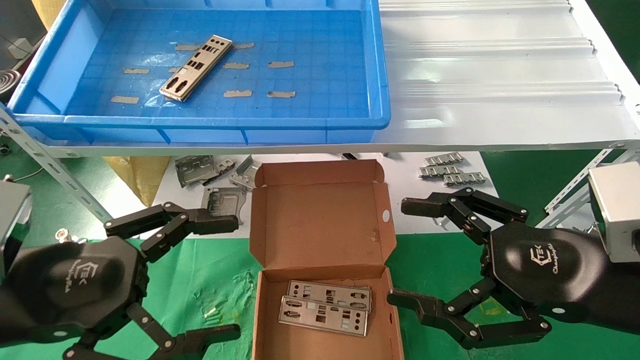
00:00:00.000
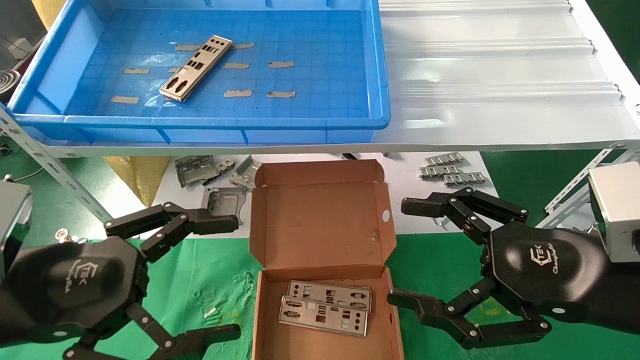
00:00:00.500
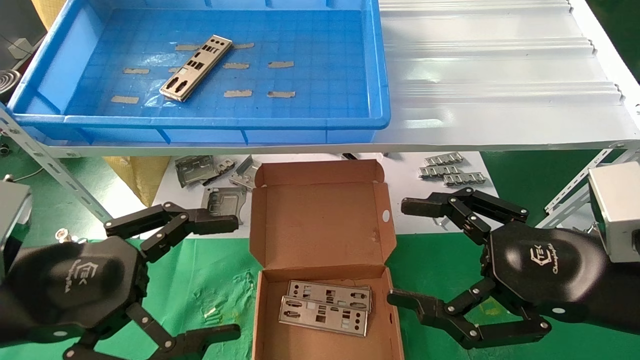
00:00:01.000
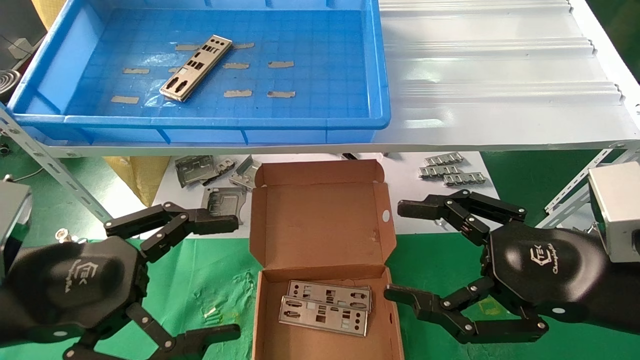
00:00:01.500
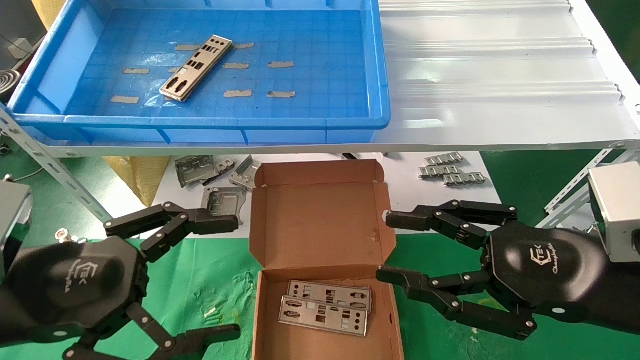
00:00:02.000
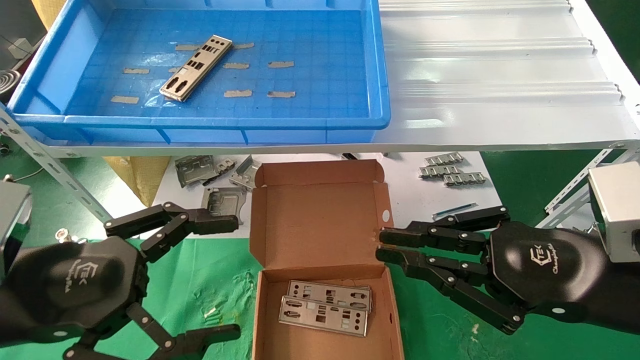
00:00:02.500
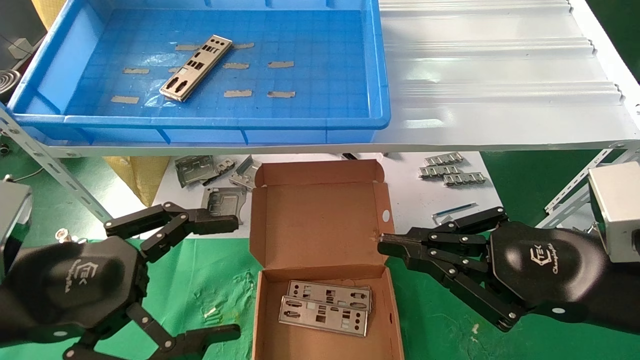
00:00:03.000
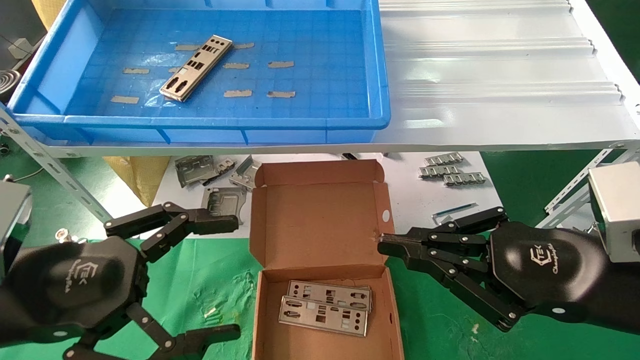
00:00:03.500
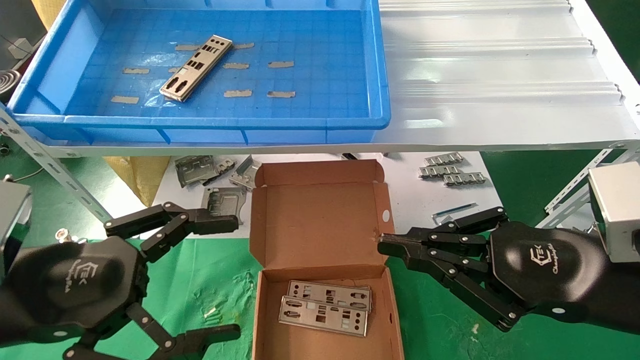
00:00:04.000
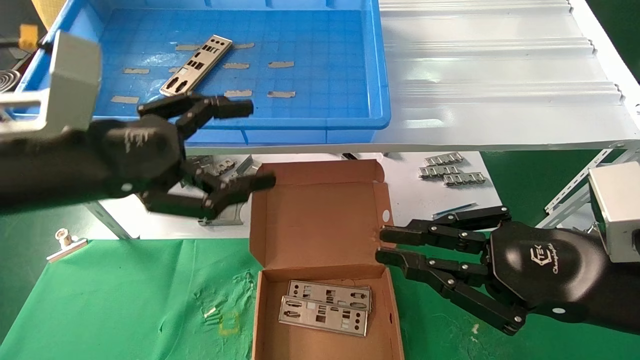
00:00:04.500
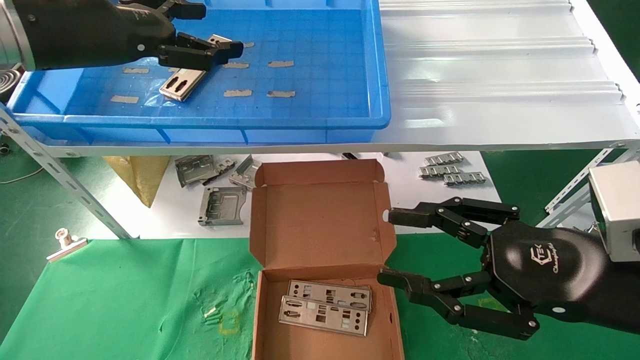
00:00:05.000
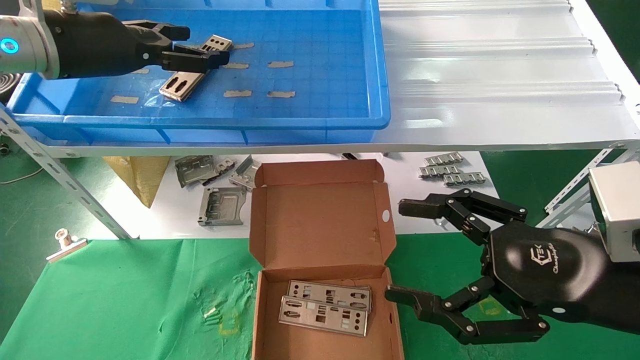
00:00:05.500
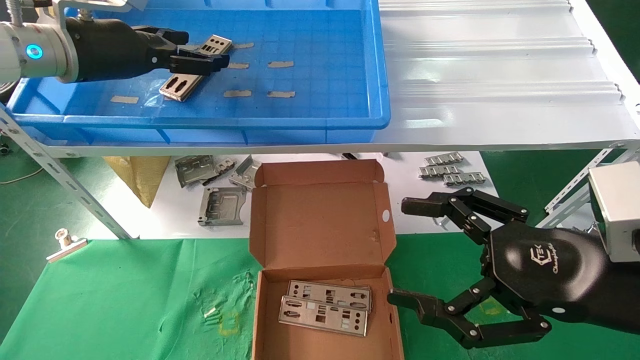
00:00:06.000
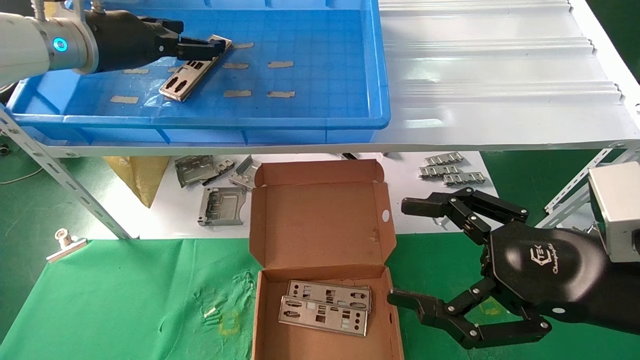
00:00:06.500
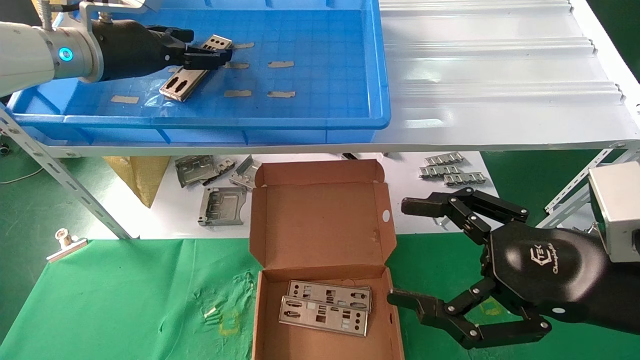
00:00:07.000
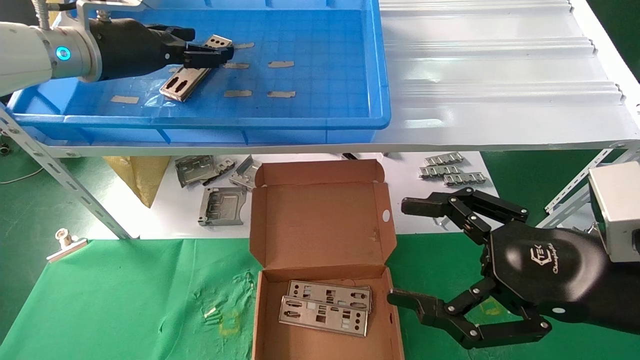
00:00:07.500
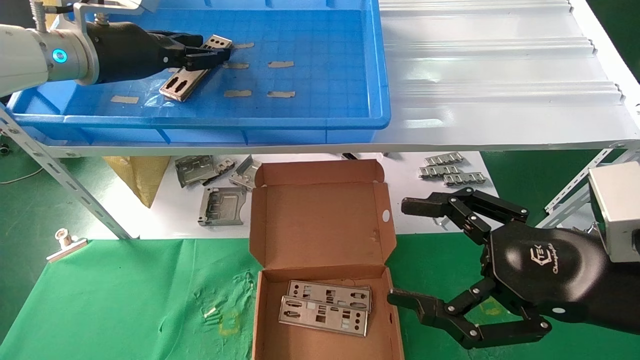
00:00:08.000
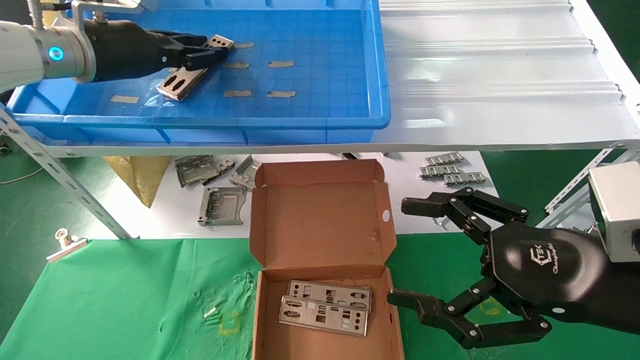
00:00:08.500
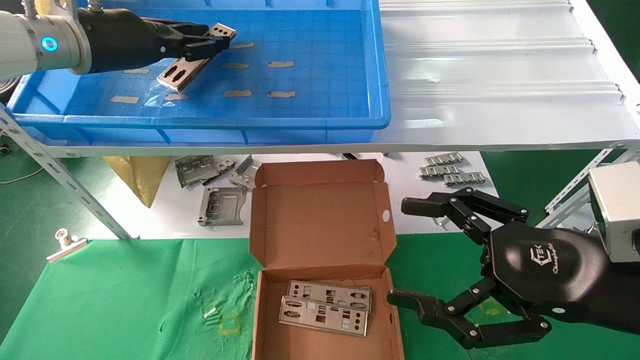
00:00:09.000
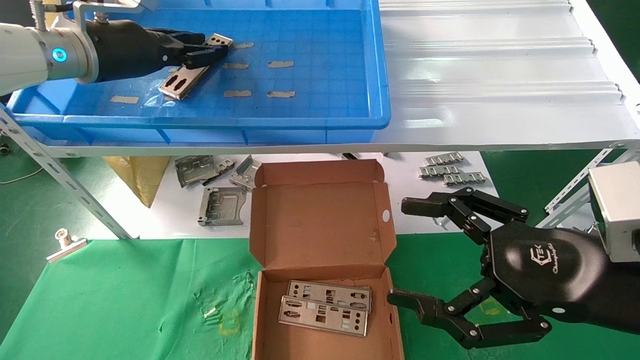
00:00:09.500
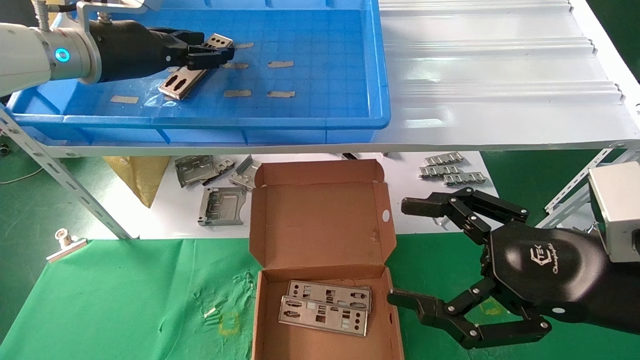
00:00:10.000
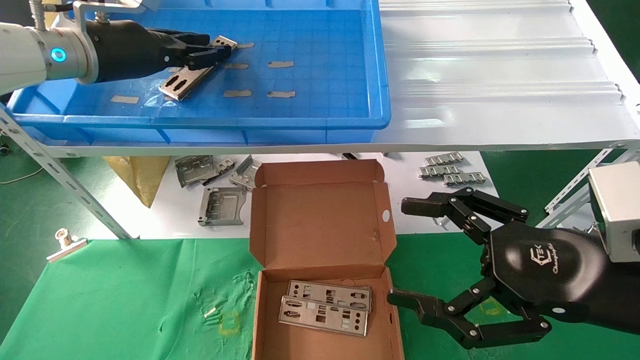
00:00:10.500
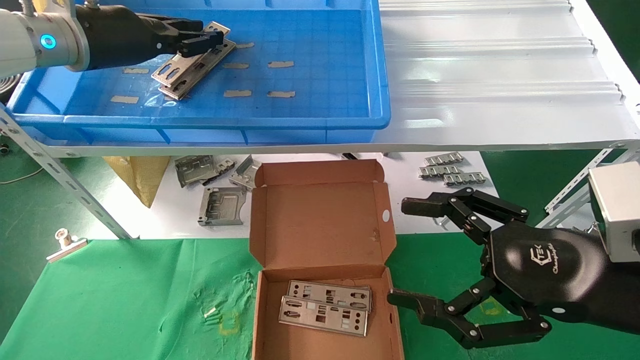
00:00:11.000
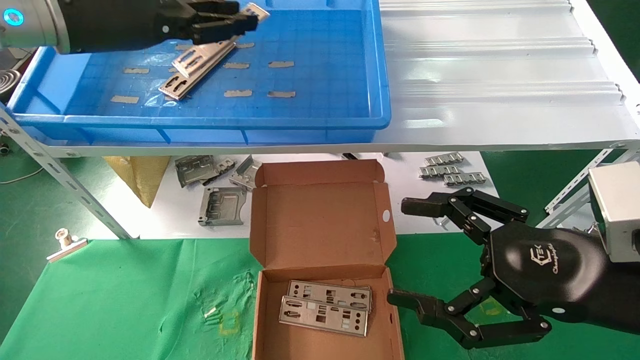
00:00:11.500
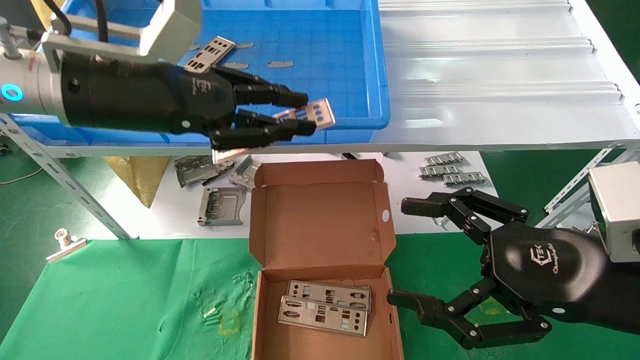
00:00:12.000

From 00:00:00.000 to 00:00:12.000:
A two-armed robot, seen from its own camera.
Task of the whole recording: pick up the parts on the tray and put them in the cardboard box.
Step, from 00:00:04.500 to 00:00:11.000: Pick up the IO bracket from the container box.
From 00:00:00.000 to 00:00:02.000: The right gripper closes its fingers.
From 00:00:02.000 to 00:00:04.000: The right gripper closes up.
From 00:00:04.000 to 00:00:06.000: The left gripper goes some 30 cm forward and upward, while the right gripper opens up.
From 00:00:06.000 to 00:00:08.000: The left gripper closes its fingers.
From 00:00:08.000 to 00:00:10.000: Both grippers stay about where they are.
From 00:00:10.000 to 00:00:12.000: The left gripper heads backward and to the right, covering some 10 cm, and closes its fingers.

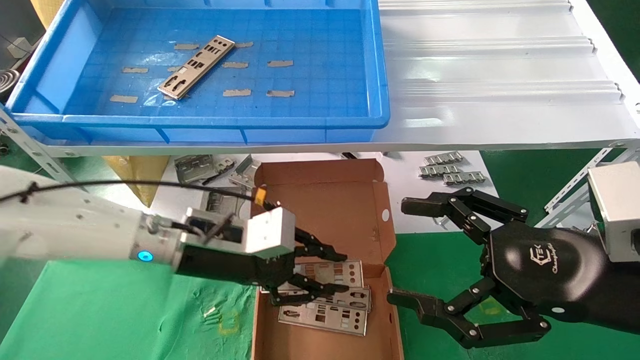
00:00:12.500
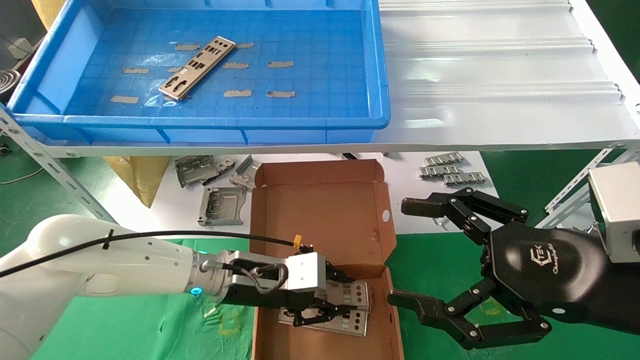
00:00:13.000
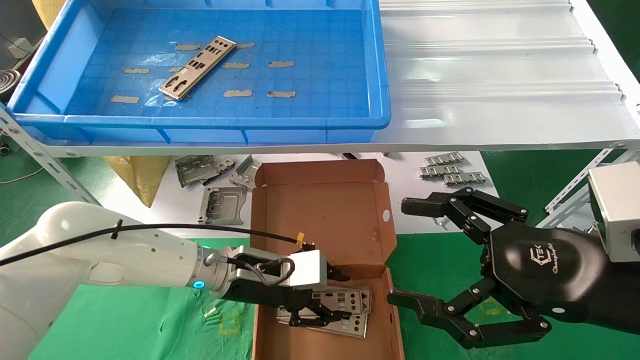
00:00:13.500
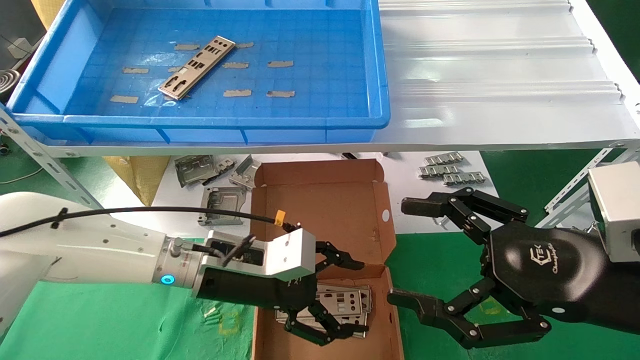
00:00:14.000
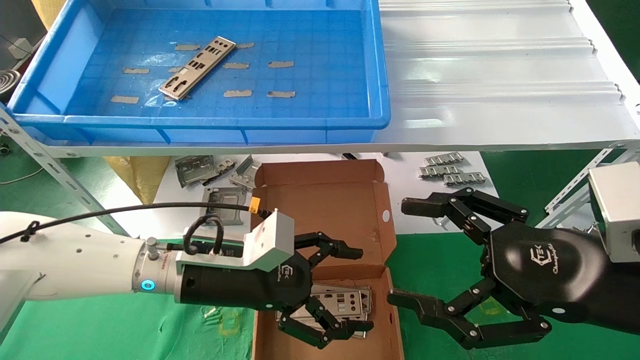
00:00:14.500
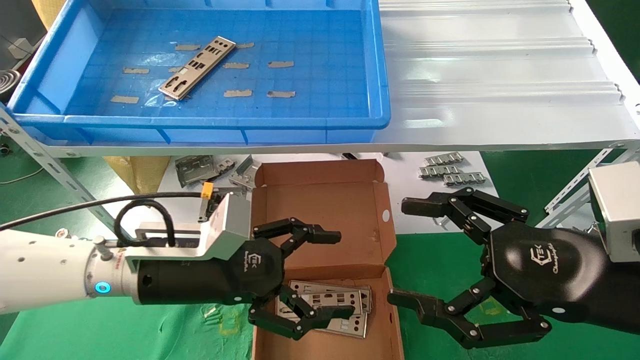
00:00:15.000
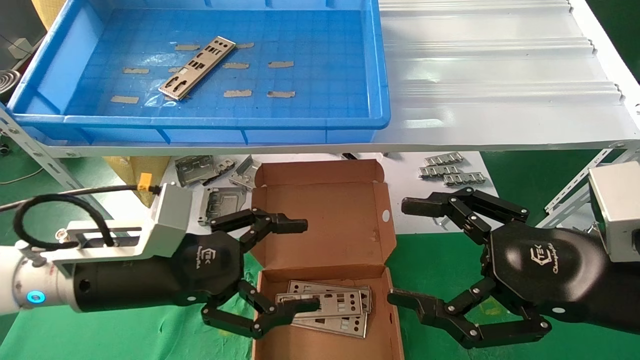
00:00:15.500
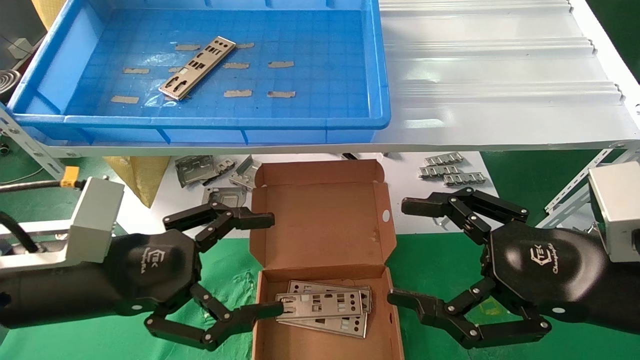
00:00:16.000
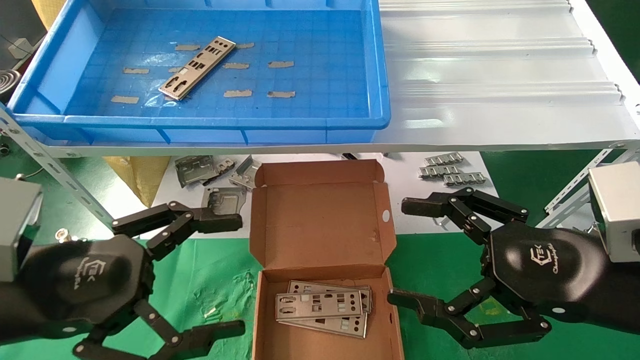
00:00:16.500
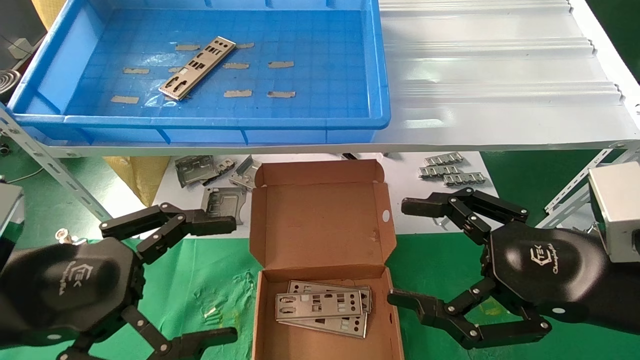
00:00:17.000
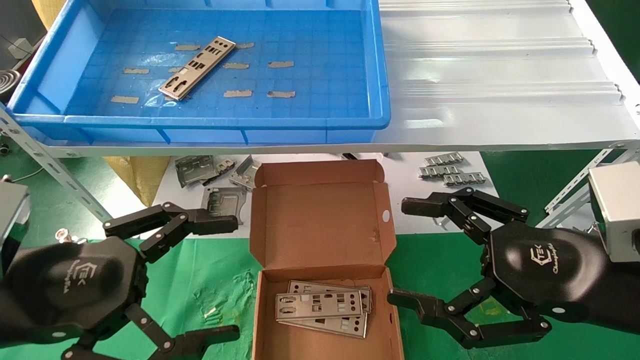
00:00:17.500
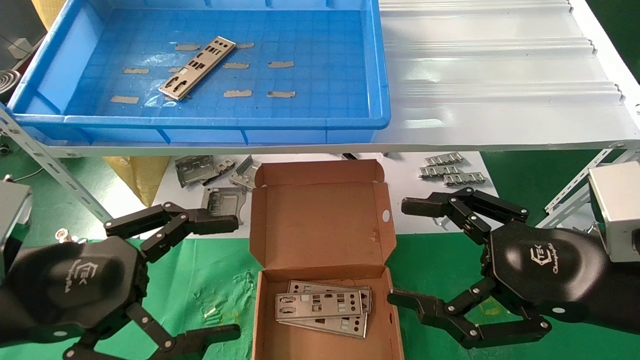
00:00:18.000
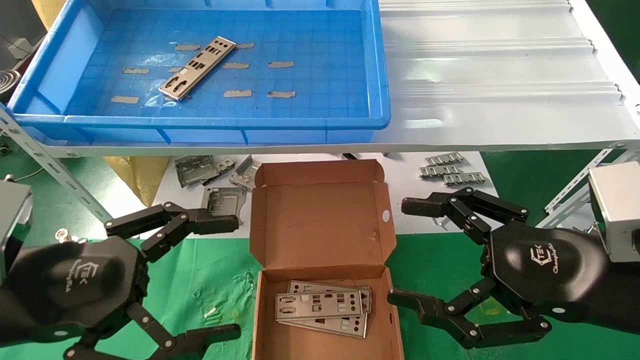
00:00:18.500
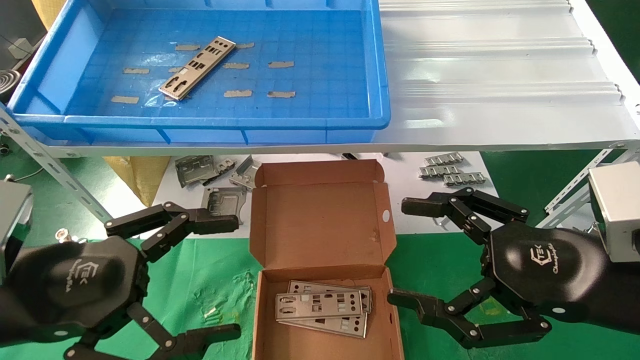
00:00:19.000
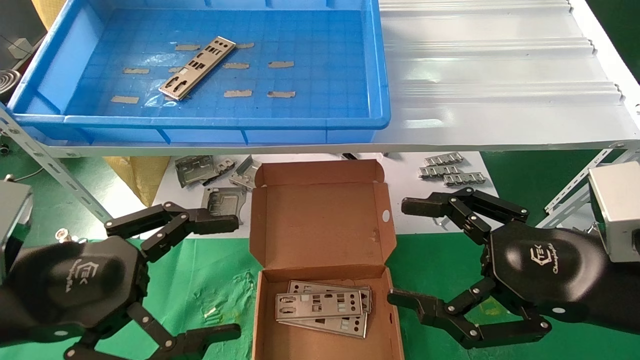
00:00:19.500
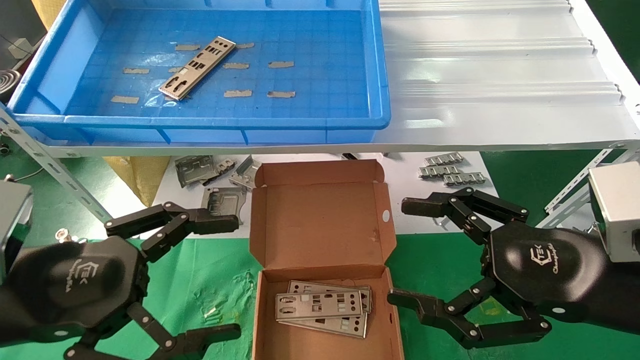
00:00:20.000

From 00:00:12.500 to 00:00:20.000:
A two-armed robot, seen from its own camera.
Task of the whole recording: pick up the parts on the tray and put them in the cardboard box.
From 00:00:12.500 to 00:00:14.500: The left gripper opens its fingers.
From 00:00:14.500 to 00:00:16.500: The left gripper moves to the left, backward and upward, approximately 20 cm.
From 00:00:16.500 to 00:00:20.000: Both grippers stay about where they are.
